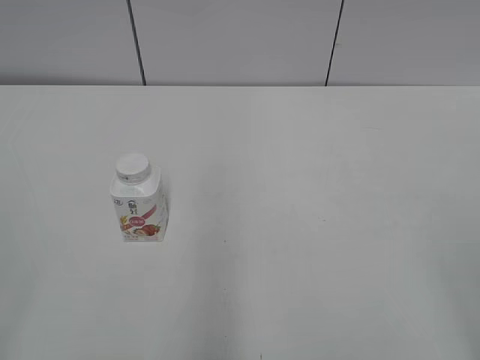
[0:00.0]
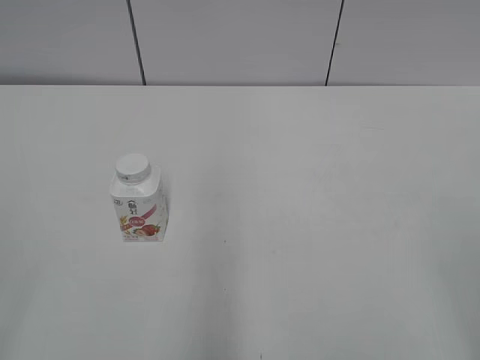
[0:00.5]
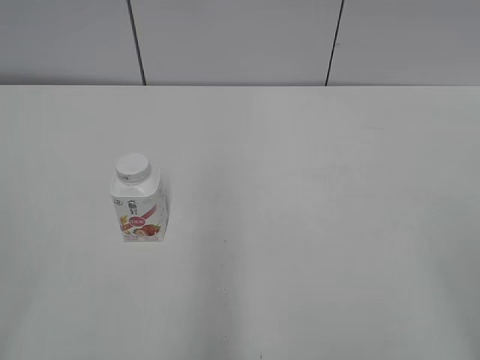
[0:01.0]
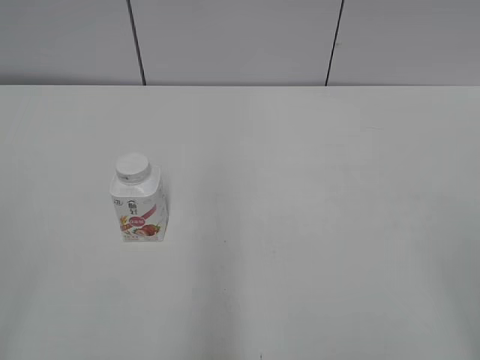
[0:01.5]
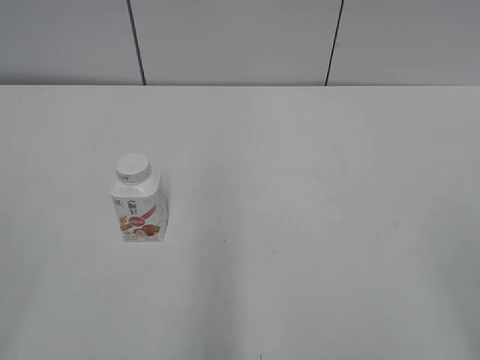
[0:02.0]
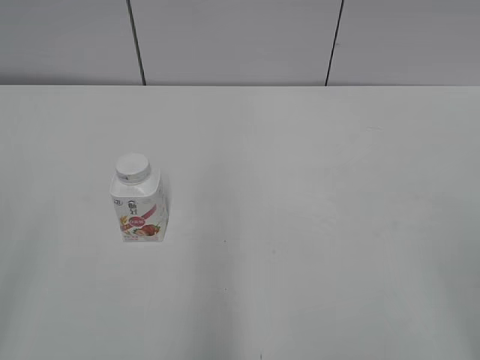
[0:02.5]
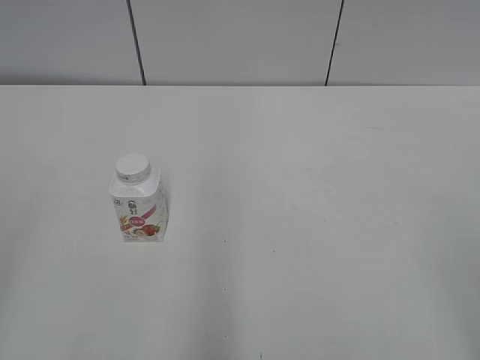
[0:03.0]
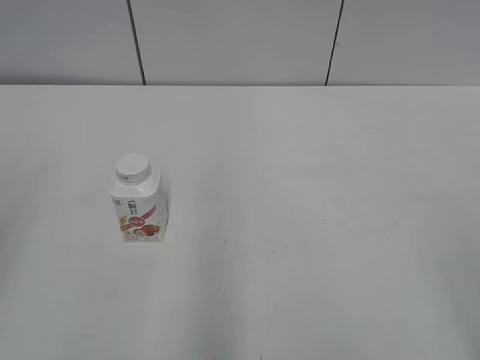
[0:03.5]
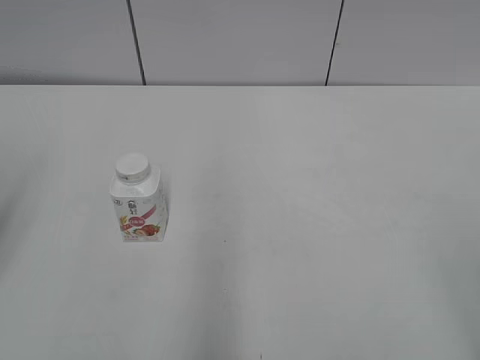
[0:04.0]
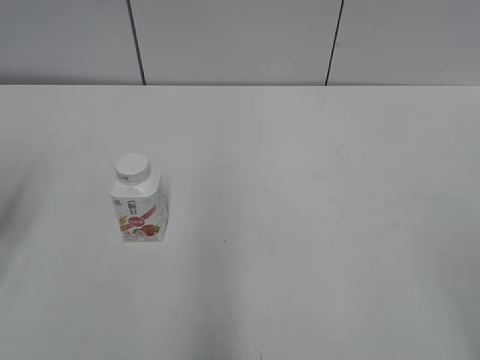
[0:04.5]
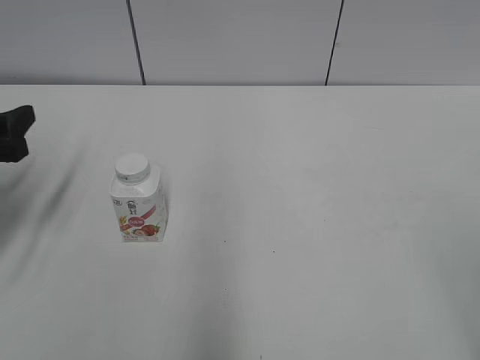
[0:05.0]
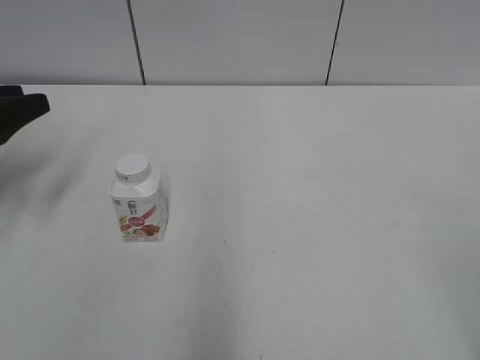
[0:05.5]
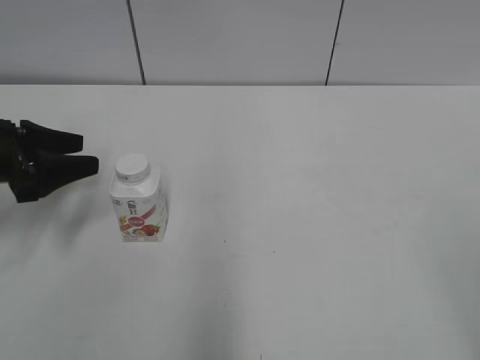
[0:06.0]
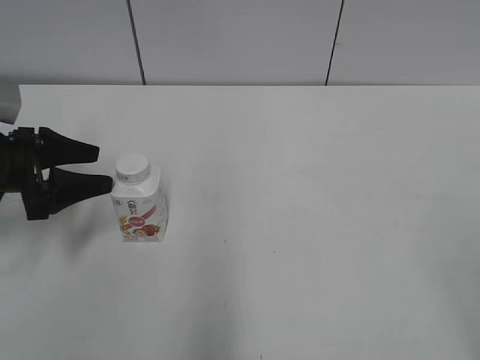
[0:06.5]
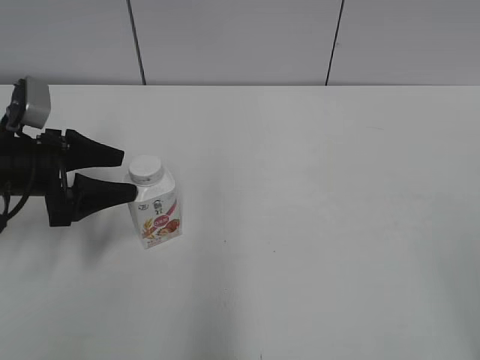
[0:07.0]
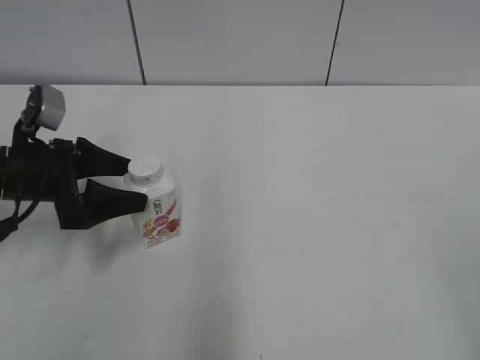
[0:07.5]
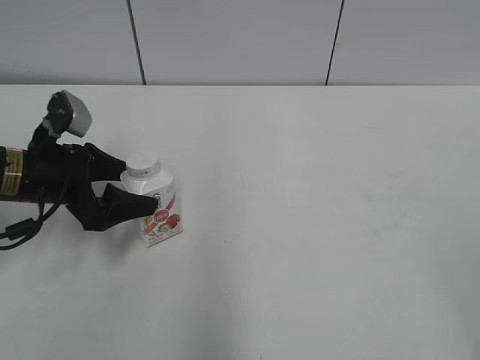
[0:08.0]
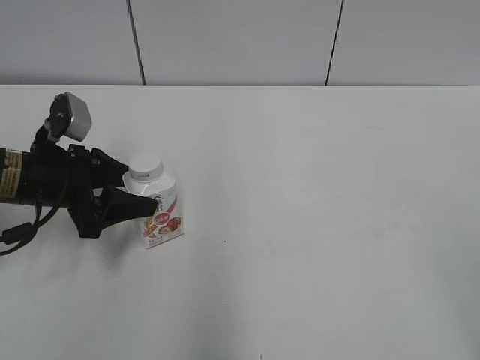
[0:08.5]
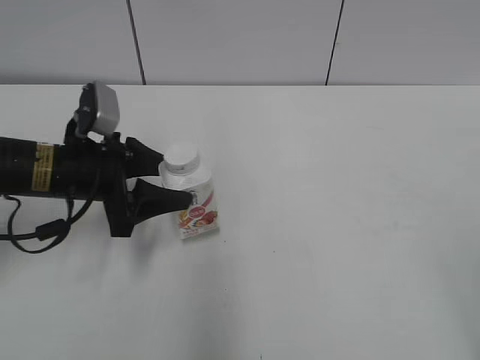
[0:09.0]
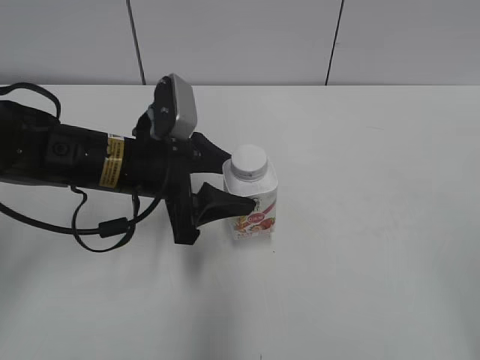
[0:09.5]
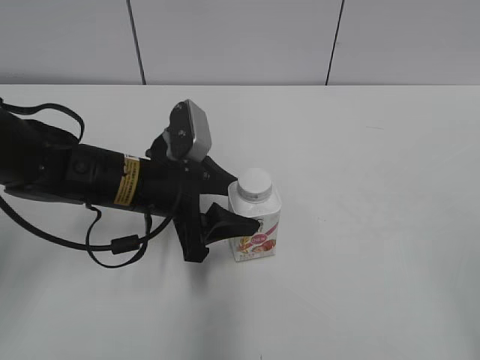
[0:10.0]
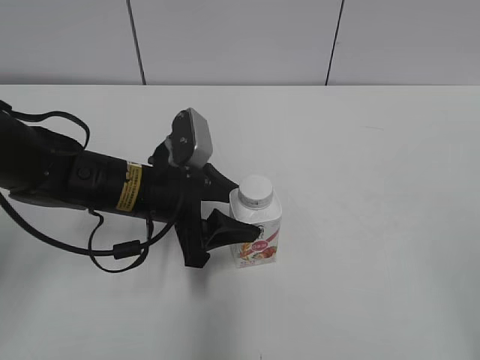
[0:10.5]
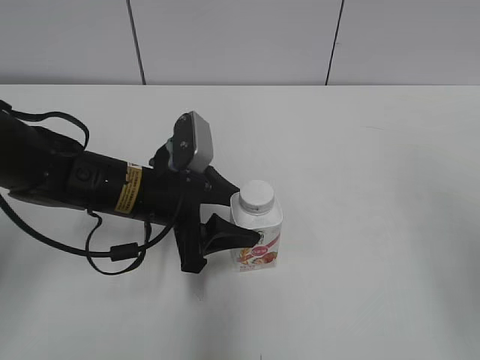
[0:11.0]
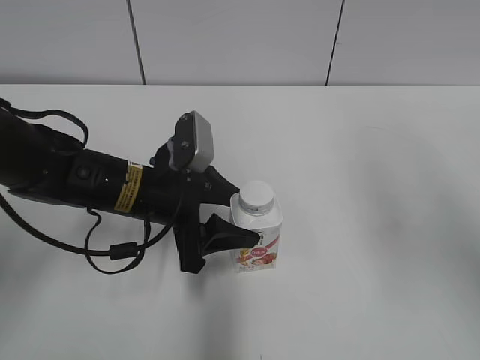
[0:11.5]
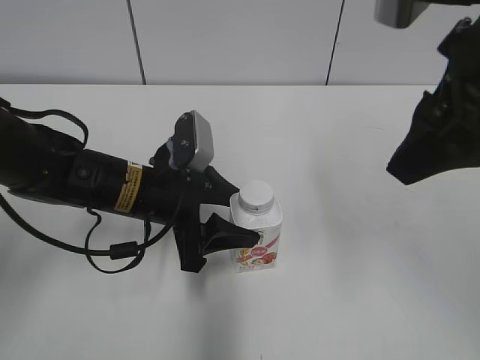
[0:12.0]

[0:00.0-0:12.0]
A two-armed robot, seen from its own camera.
Step, 0:00.0 to 0:08.0: Grab the Yili Changqing with the left hand.
Step, 0:08.5 to 0:11.0: Move the Yili Changqing from left to right.
0:04.0 to 0:06.0: The left gripper moves forward and downward, about 20 cm.
0:06.0 to 0:08.0: The left gripper travels to the right by roughly 5 cm.
0:08.0 to 0:10.0: The left gripper travels to the right by about 15 cm, and closes its fingers.
0:10.0 to 0:12.0: The right gripper heads forward and to the left, covering approximately 25 cm.

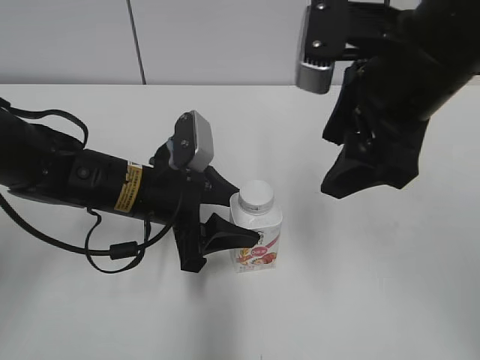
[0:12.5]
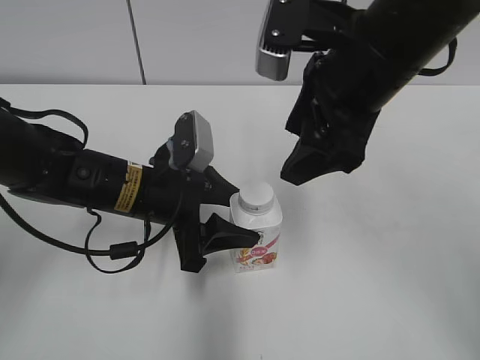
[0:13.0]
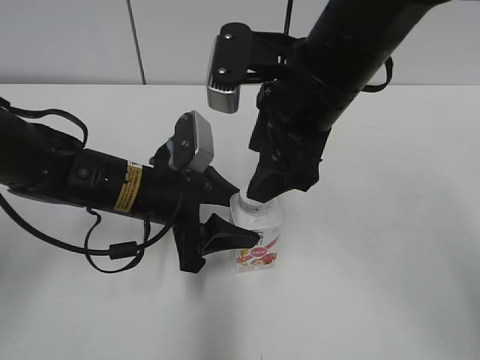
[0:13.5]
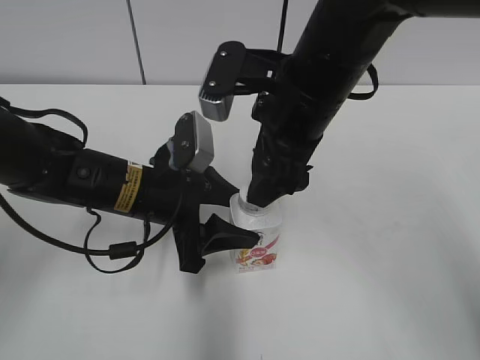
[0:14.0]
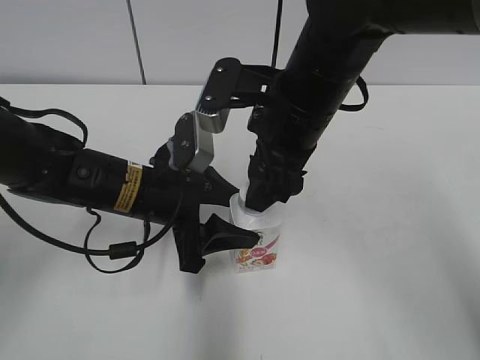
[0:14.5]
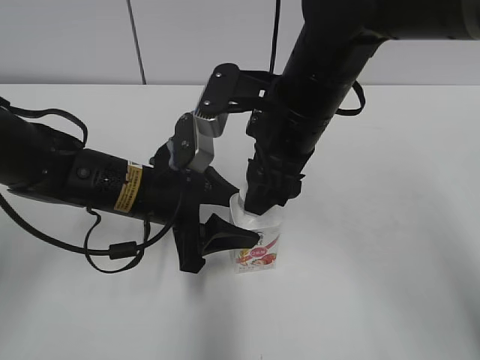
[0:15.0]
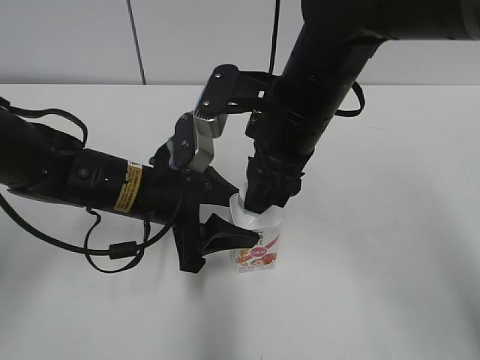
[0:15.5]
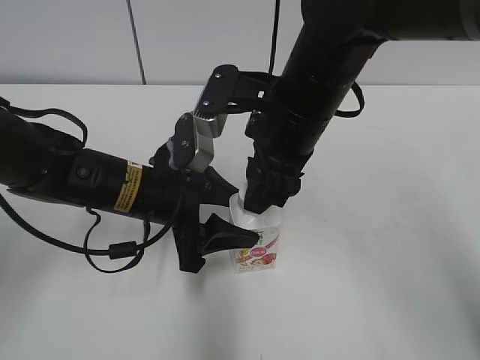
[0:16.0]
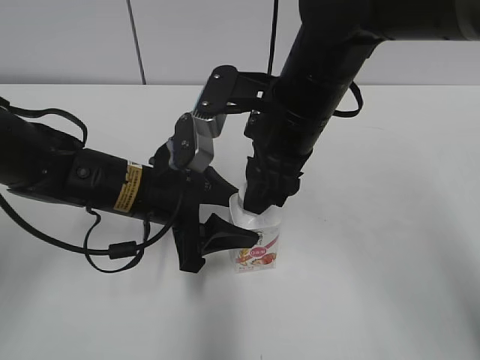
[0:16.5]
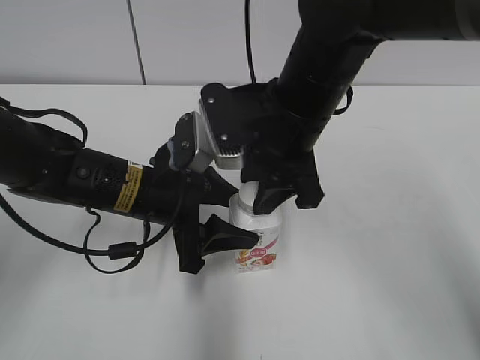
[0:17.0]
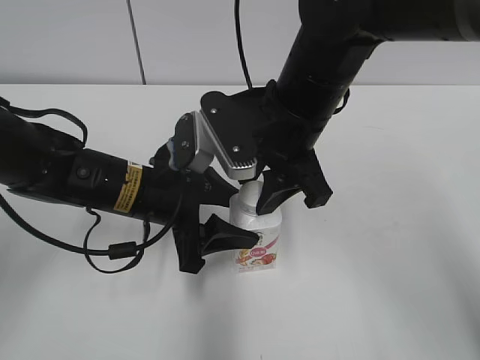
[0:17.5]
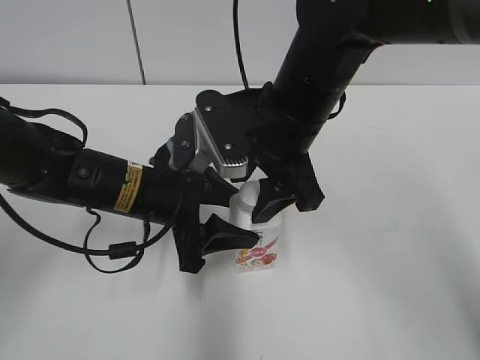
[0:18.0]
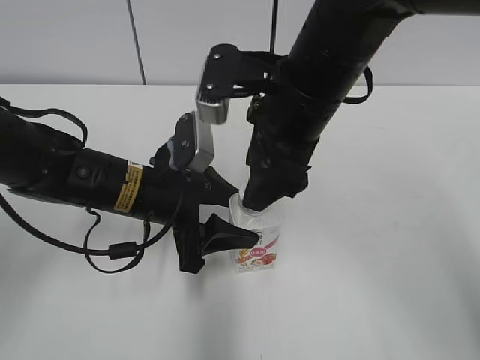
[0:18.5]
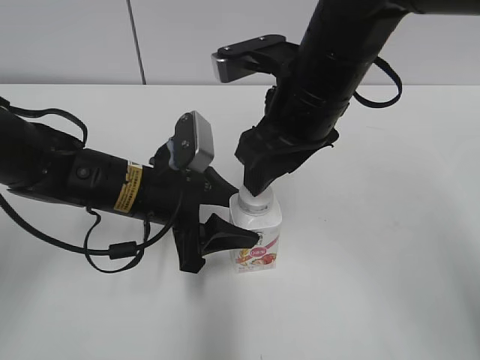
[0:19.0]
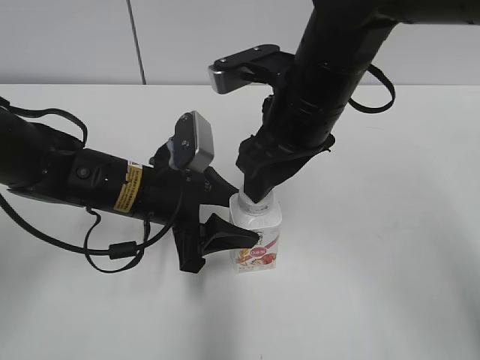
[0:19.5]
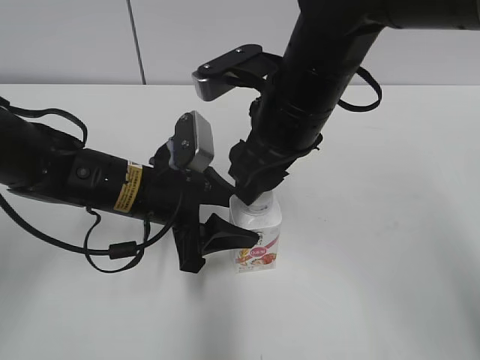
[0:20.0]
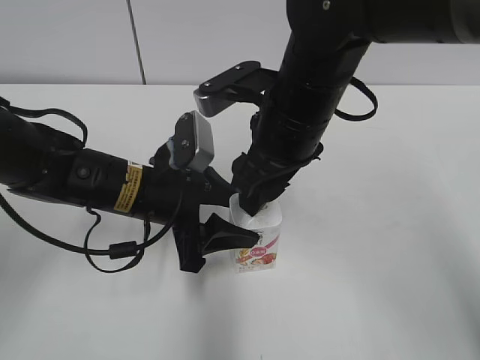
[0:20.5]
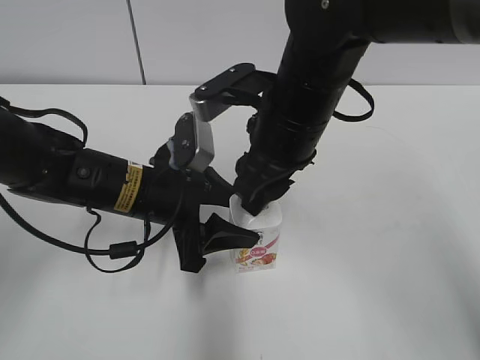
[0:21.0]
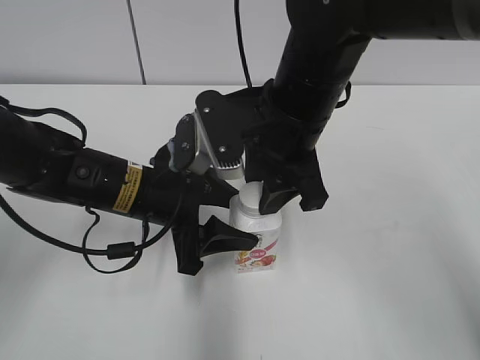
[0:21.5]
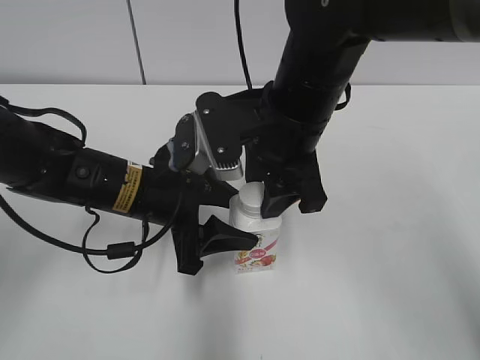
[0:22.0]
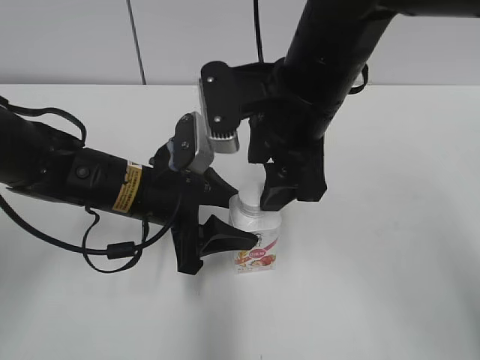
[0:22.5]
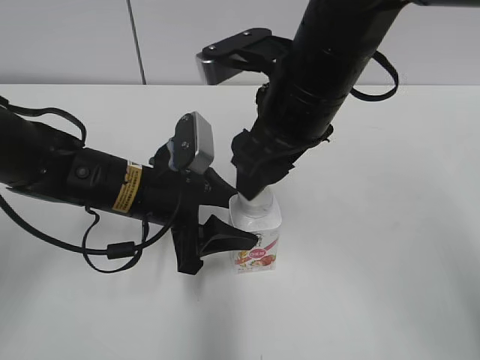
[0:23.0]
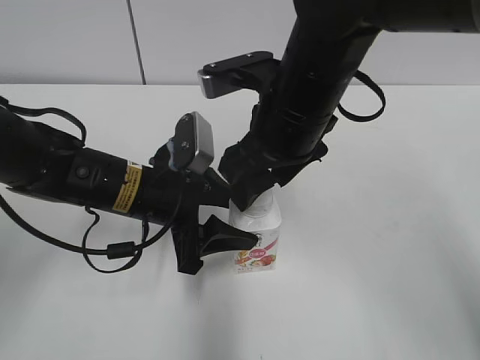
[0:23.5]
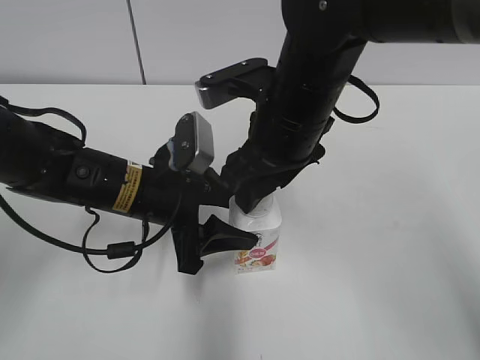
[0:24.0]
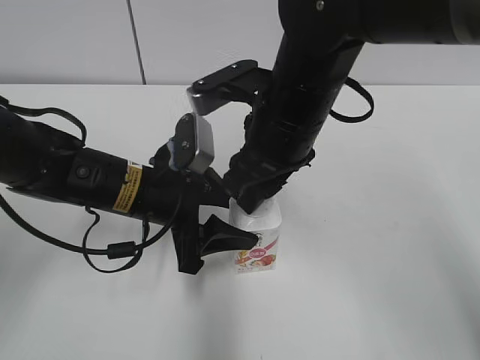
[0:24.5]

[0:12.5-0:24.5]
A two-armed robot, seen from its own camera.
0:12.5 to 0:14.5: The right gripper is displaced downward and to the left by roughly 10 cm, and closes.
0:14.5 to 0:16.5: The right gripper closes its fingers.
0:16.5 to 0:18.5: The right gripper opens up.
0:20.5 to 0:22.5: The right gripper closes, then reopens.
0:22.5 to 0:24.5: The right gripper closes.

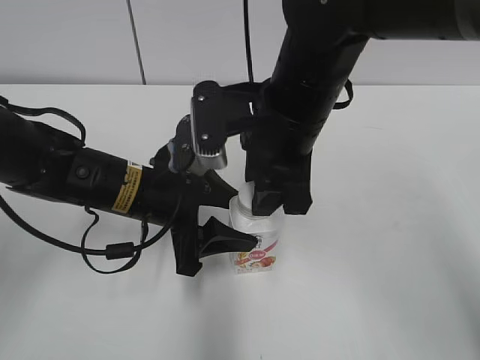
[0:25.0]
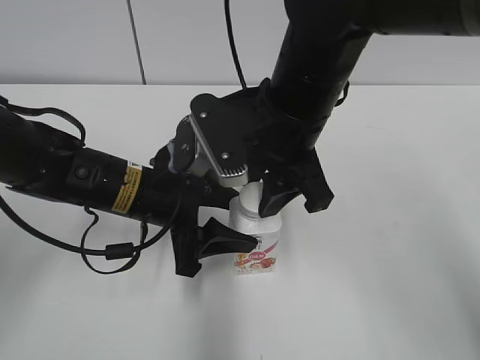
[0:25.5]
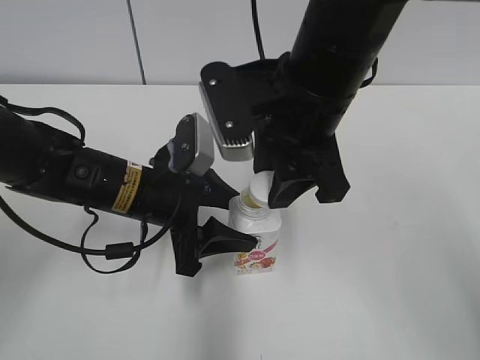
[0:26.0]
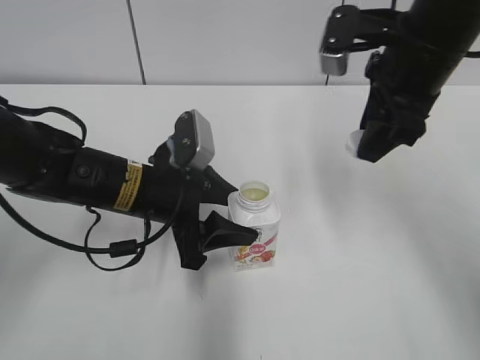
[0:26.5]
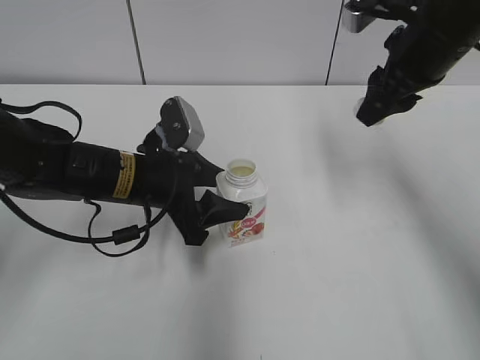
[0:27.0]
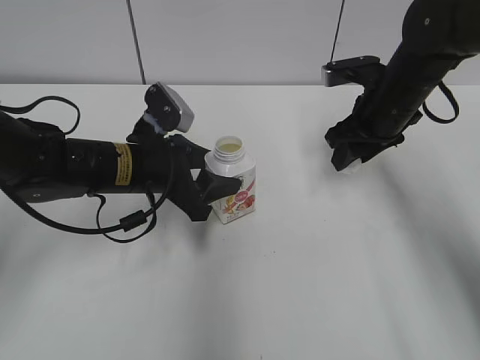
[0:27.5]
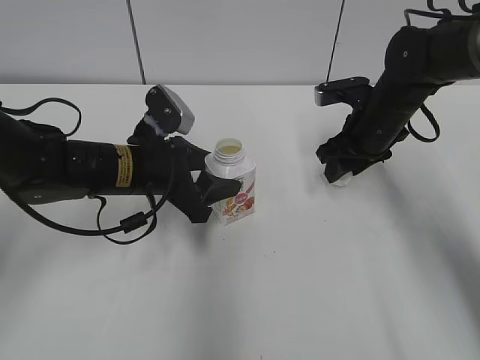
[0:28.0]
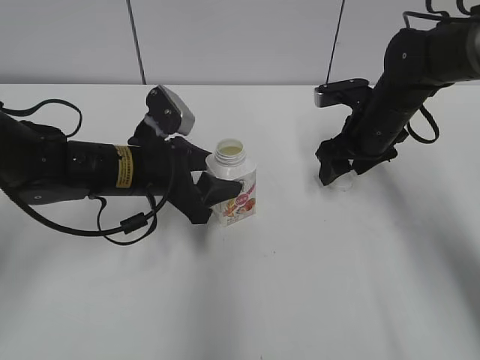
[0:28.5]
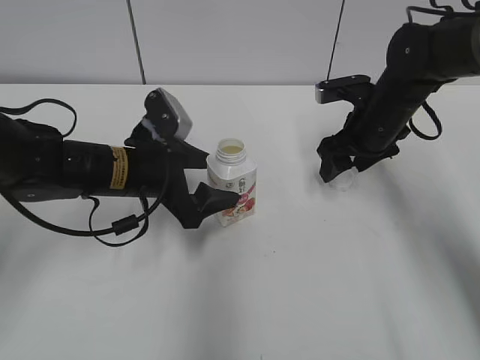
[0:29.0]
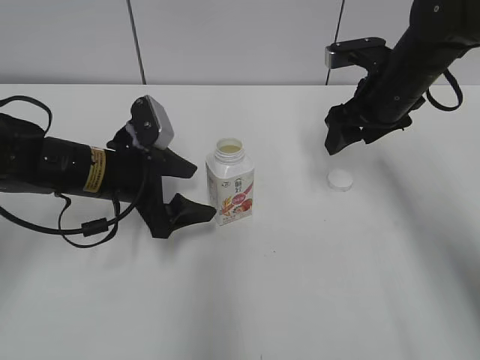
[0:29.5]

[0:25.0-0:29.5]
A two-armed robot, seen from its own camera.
Step, 0:26.5 to 0:28.0: Place the bottle cap on the right.
0:25.0 to 0:27.0: The right gripper heads to the right and forward, covering approximately 15 cm.
0:27.0 to 0:29.5: The right gripper moves downward, roughly 10 cm, and opens its fingers. Meanwhile the left gripper opens its fingers.
